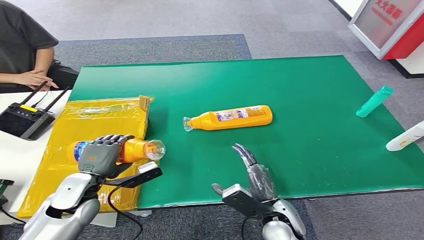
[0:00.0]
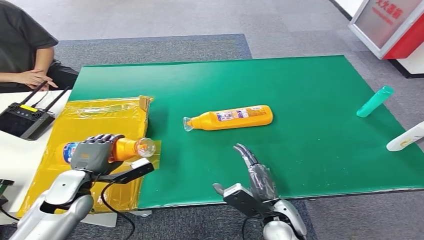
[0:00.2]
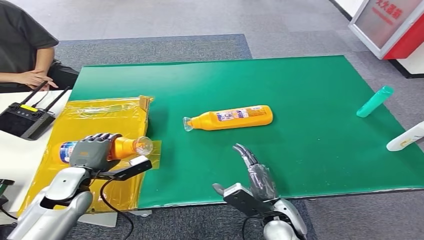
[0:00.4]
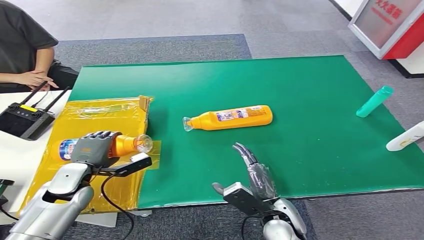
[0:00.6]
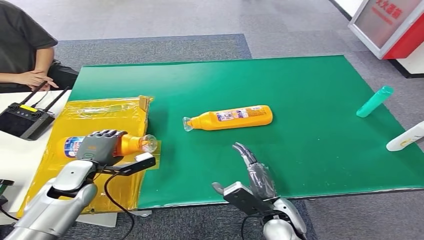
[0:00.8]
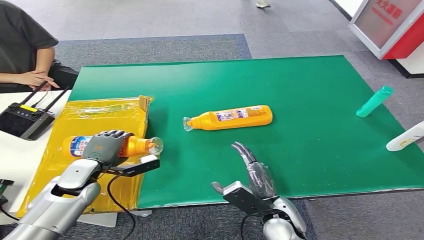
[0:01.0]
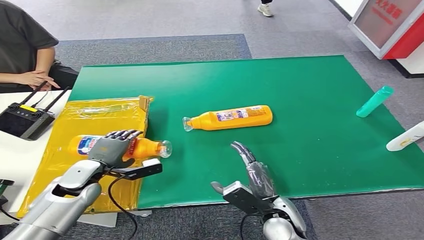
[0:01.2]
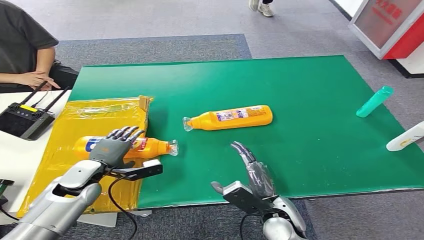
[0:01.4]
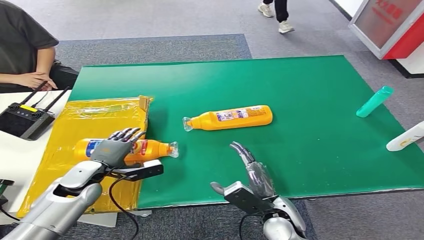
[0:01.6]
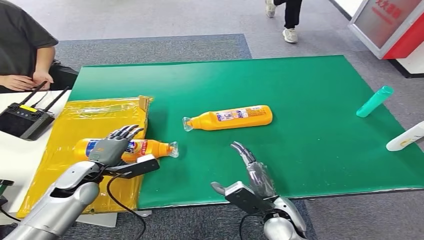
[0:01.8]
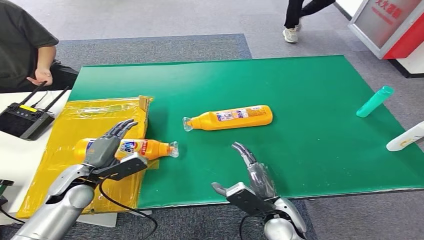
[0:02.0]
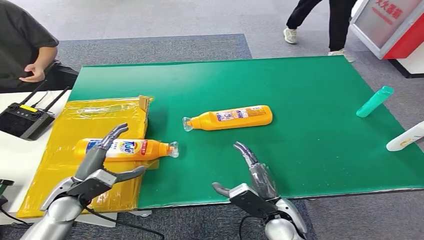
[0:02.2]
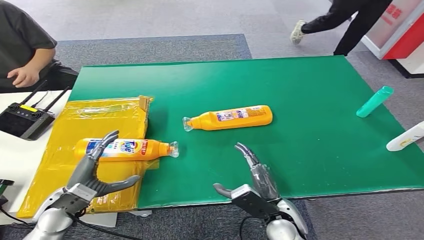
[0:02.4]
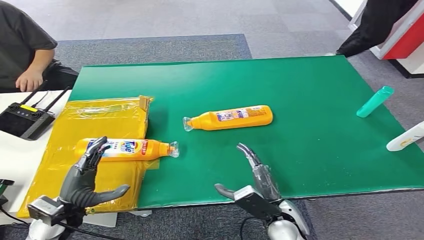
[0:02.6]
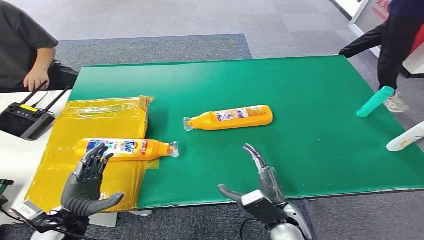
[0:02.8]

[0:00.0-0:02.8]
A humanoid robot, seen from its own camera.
Step, 0:00.0 to 0:02.8: Turn the bottle to the front side.
0:00.0 to 0:01.4: The left hand moves about 5 cm.
0:01.4 to 0:02.8: The left hand travels backward by approximately 10 cm.
